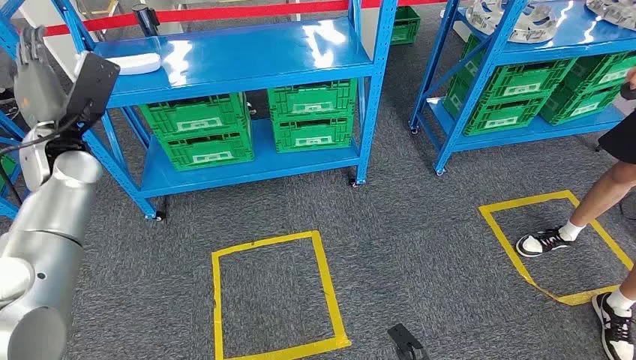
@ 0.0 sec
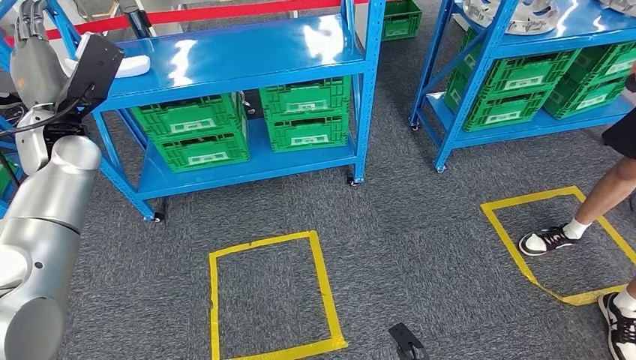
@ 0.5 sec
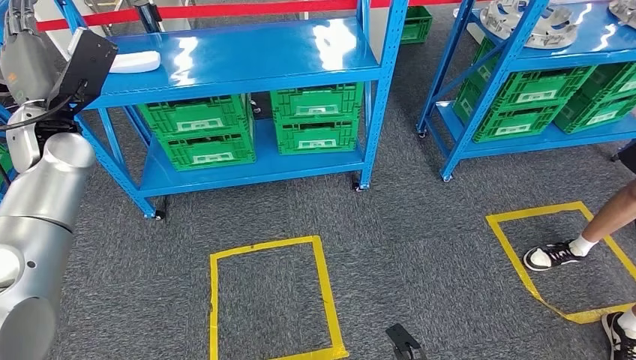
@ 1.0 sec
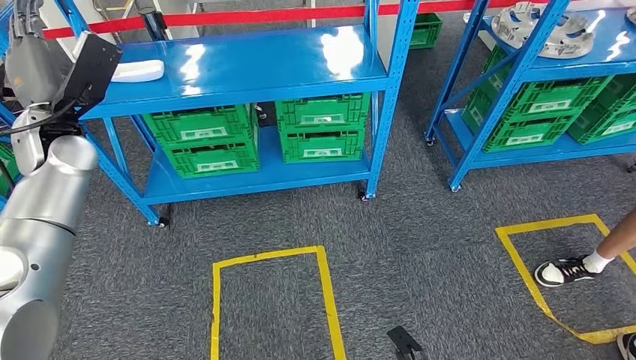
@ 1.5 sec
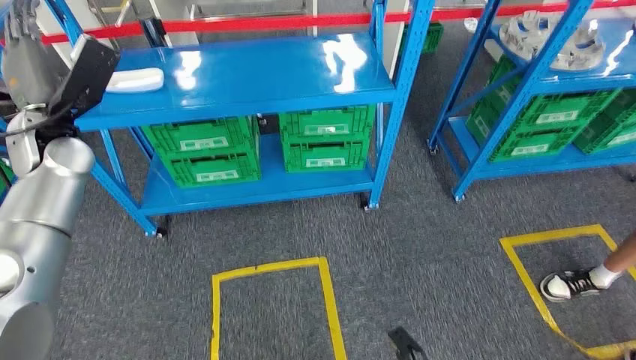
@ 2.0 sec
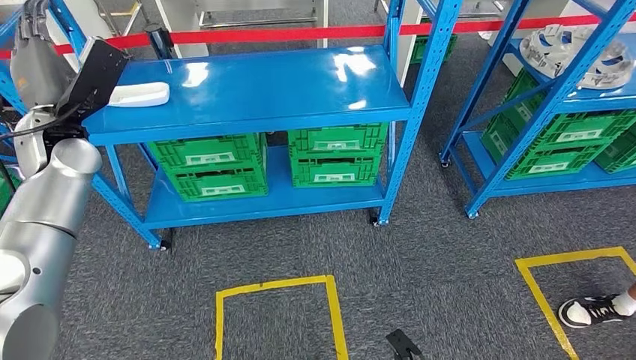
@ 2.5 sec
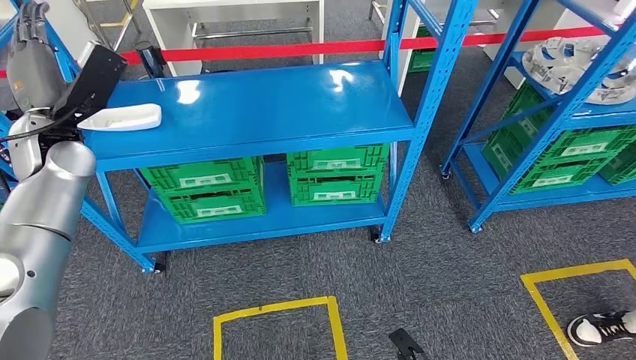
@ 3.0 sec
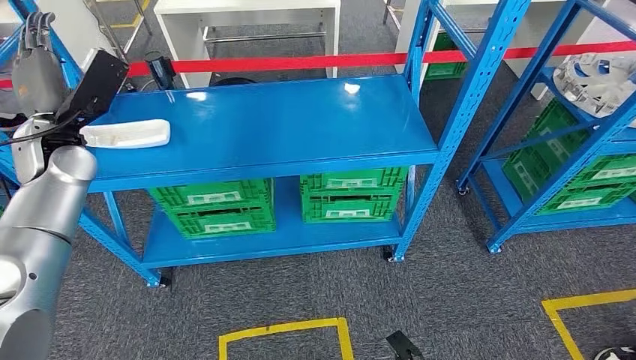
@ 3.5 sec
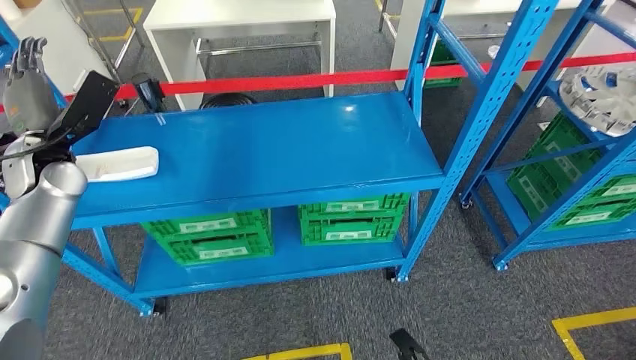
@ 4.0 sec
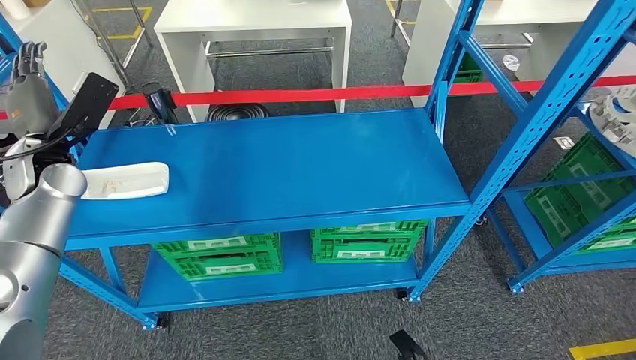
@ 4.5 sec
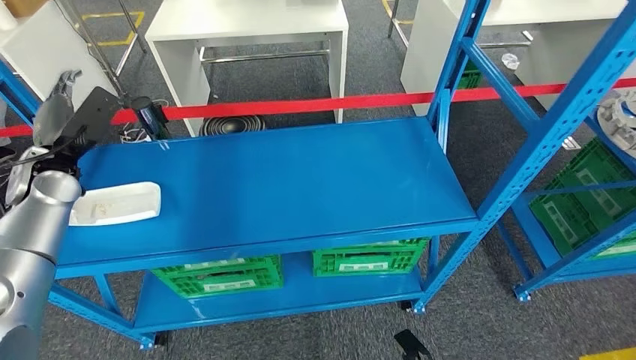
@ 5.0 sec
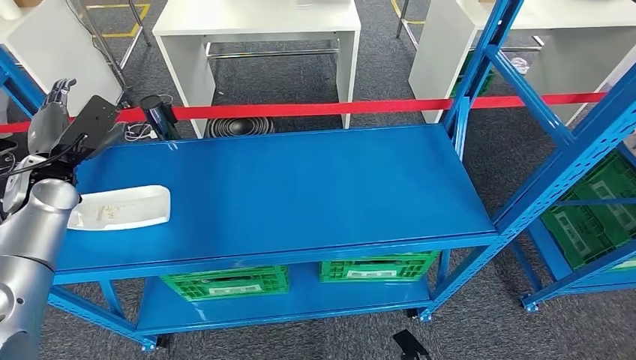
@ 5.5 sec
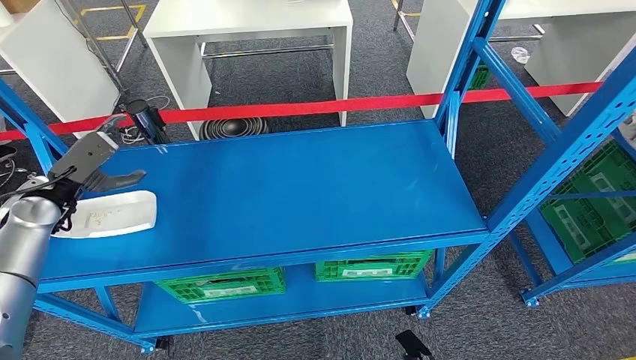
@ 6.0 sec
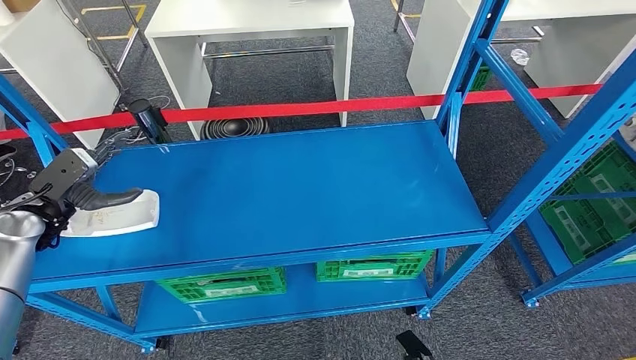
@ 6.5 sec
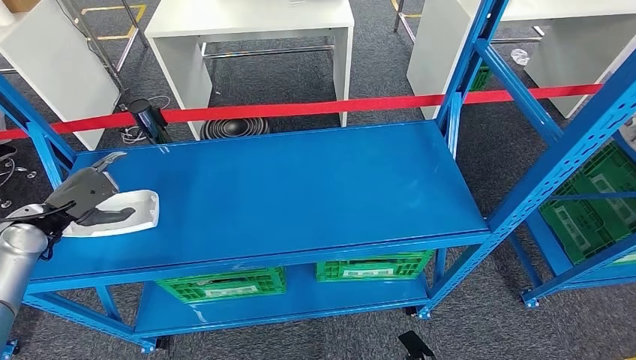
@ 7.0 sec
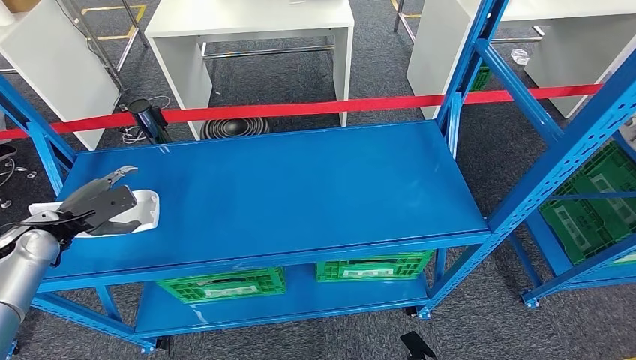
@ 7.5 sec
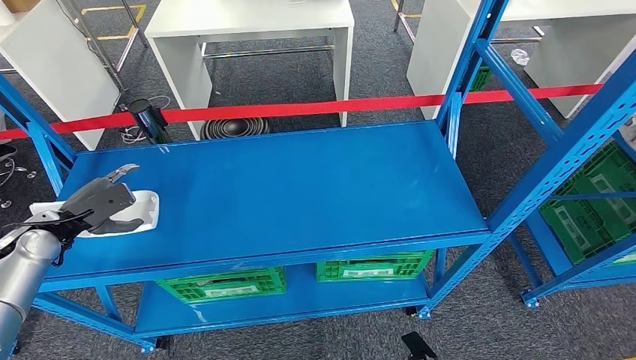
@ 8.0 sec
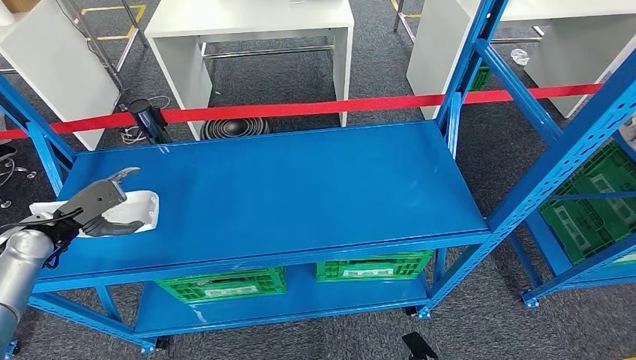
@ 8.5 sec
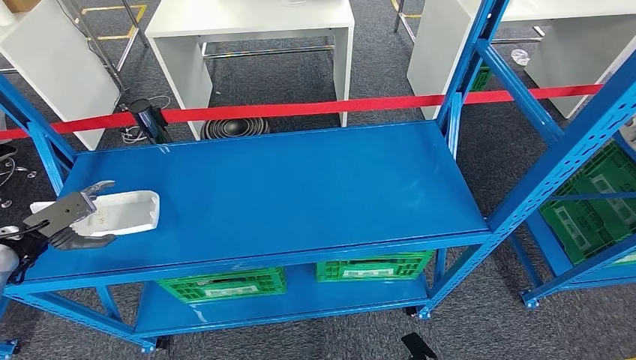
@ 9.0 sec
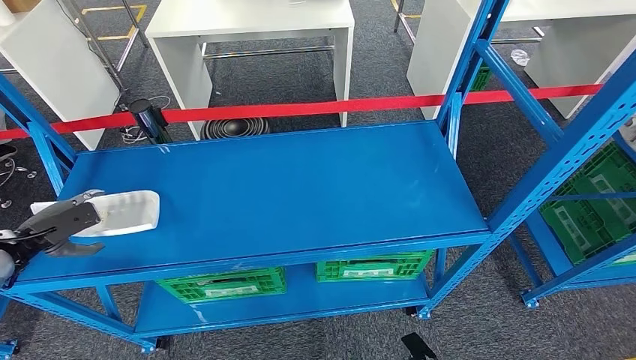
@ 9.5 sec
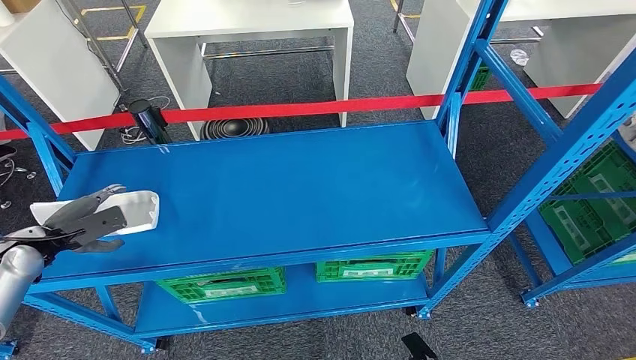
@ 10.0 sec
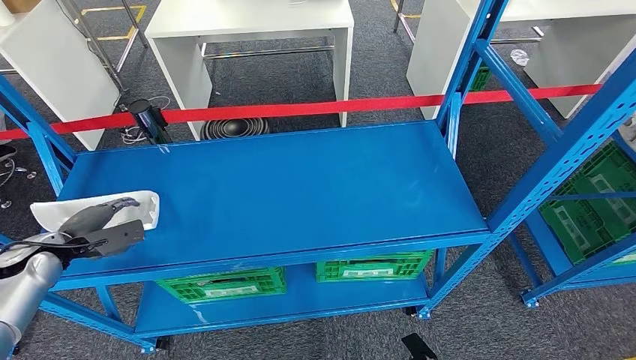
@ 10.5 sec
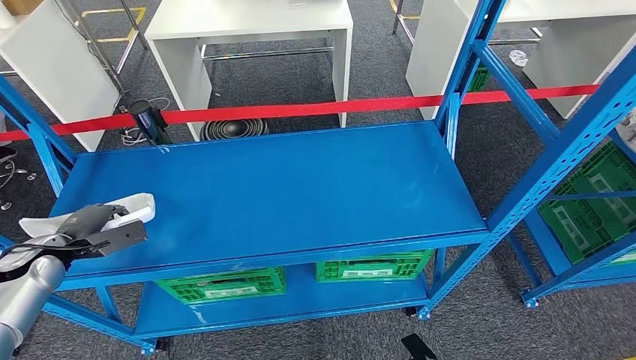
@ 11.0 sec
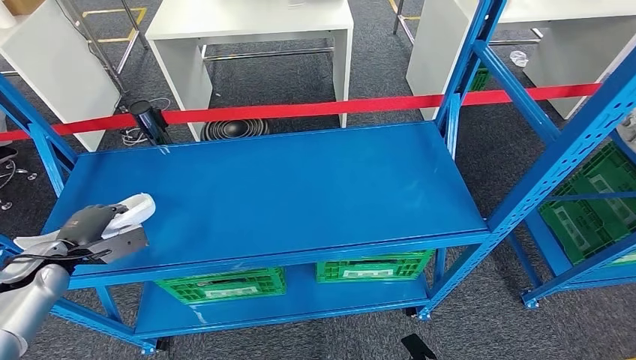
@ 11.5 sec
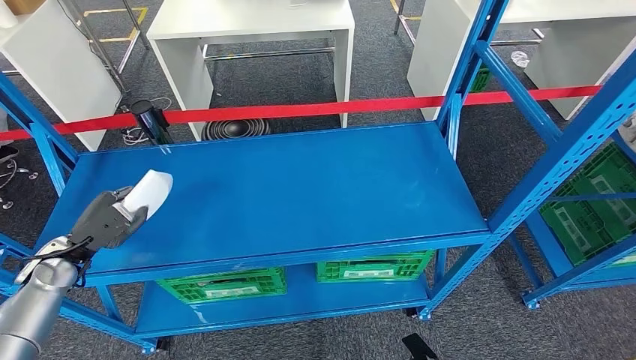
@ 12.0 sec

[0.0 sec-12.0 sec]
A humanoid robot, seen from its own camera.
6.0 sec to 8.0 sec: The left hand changes place by about 5 cm.
10.0 sec to 12.0 sec: The left hand travels to the right by about 5 cm.

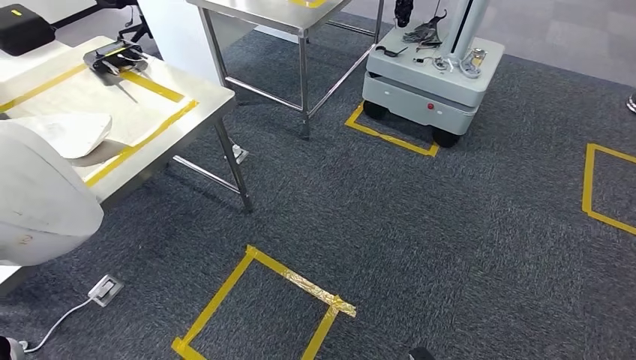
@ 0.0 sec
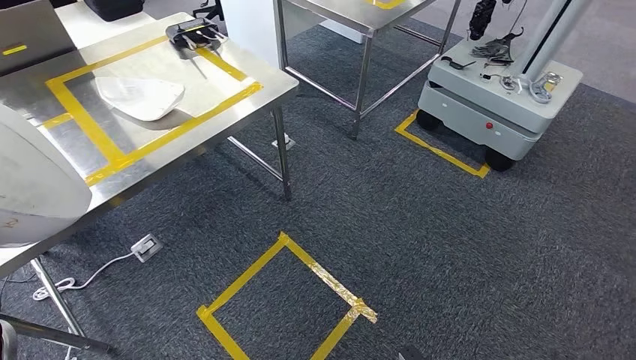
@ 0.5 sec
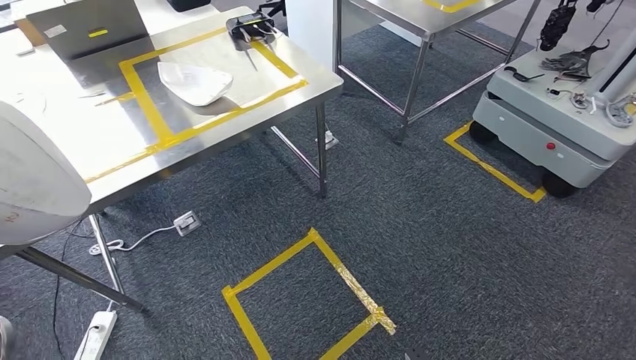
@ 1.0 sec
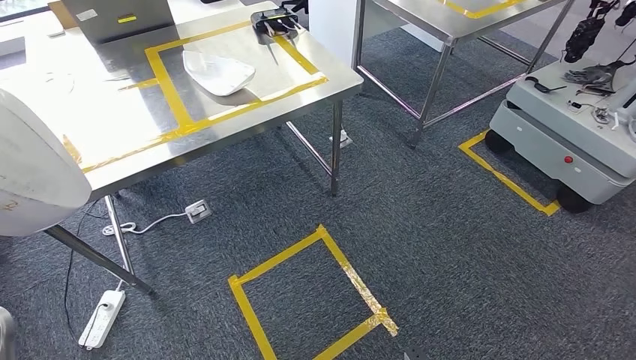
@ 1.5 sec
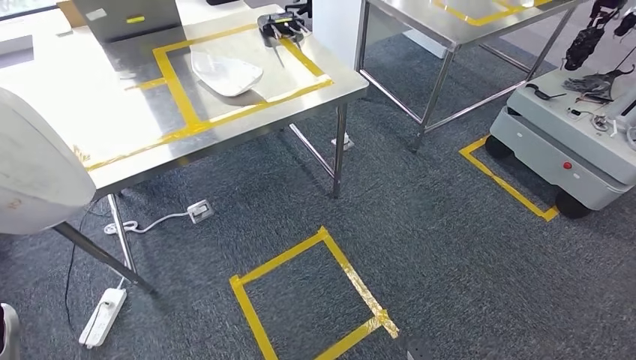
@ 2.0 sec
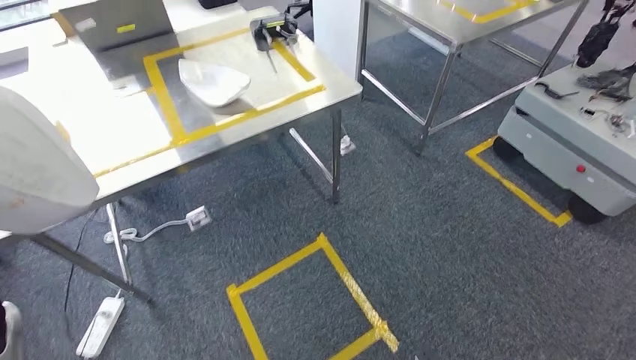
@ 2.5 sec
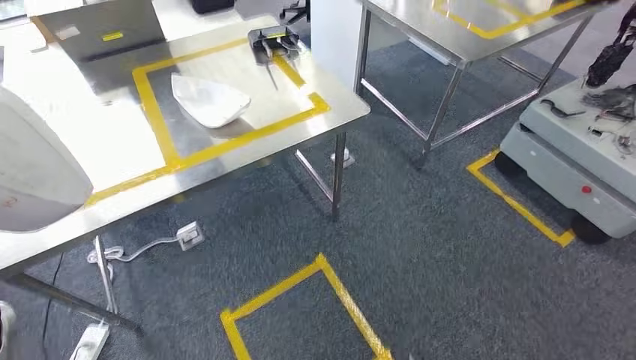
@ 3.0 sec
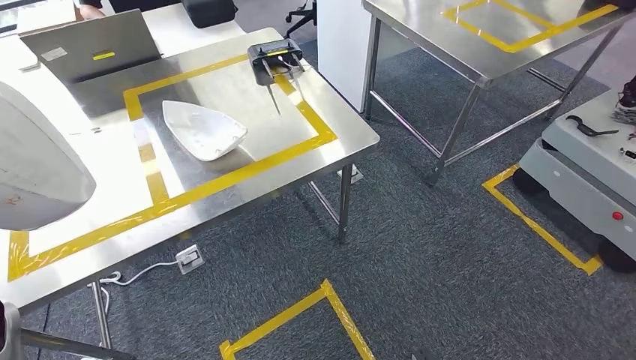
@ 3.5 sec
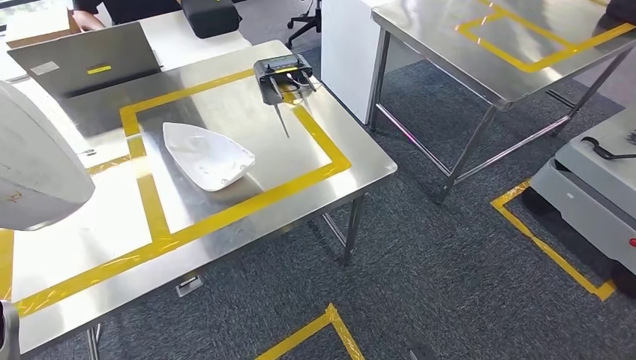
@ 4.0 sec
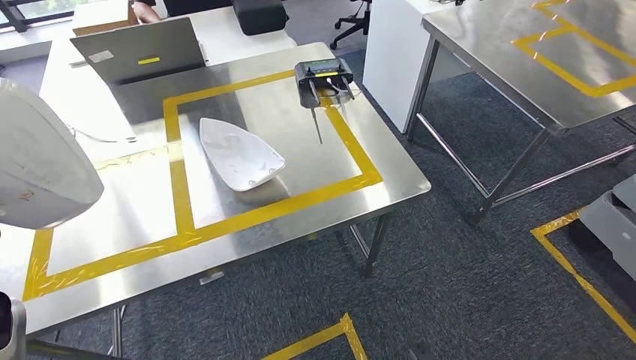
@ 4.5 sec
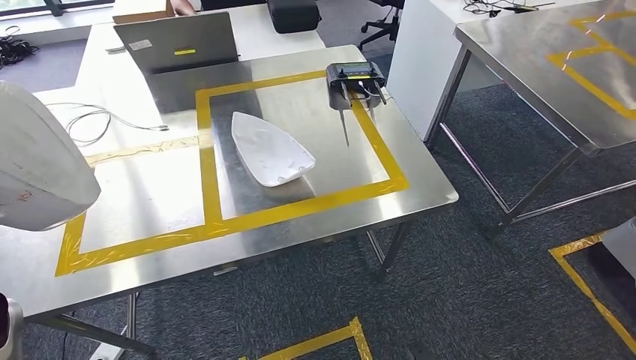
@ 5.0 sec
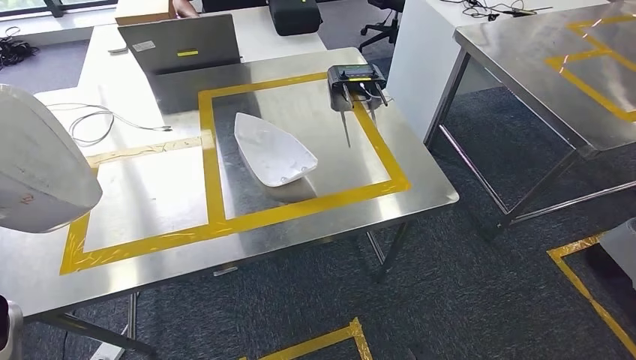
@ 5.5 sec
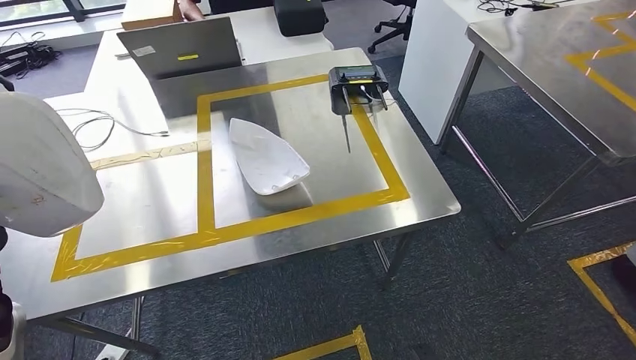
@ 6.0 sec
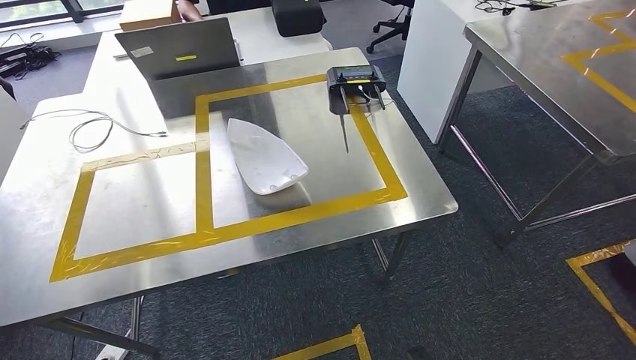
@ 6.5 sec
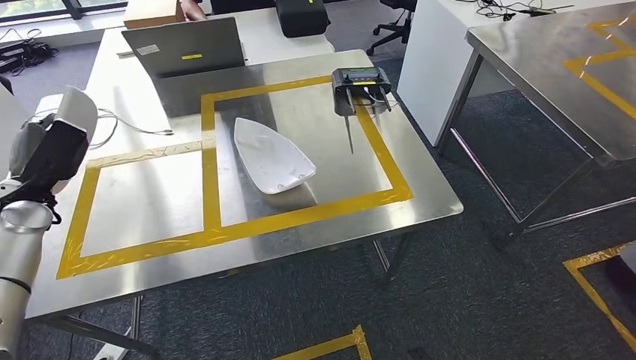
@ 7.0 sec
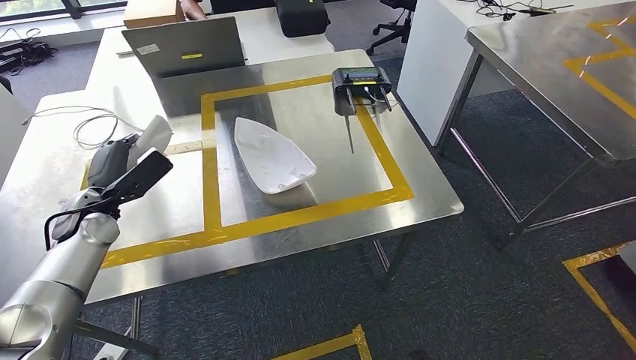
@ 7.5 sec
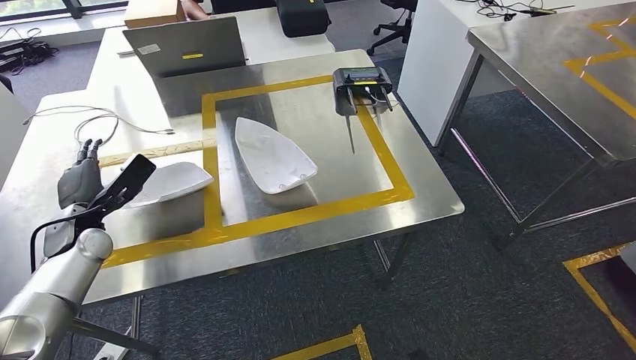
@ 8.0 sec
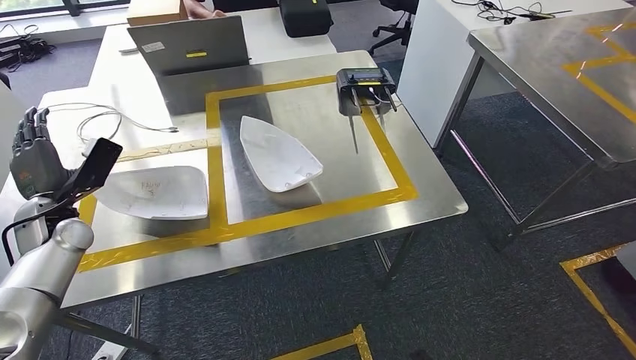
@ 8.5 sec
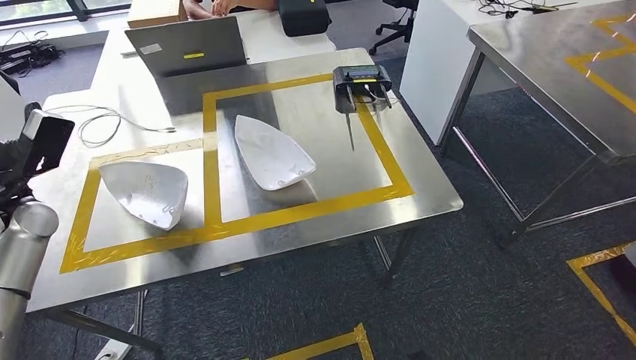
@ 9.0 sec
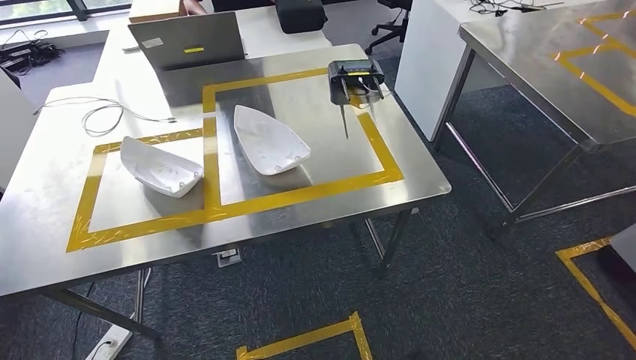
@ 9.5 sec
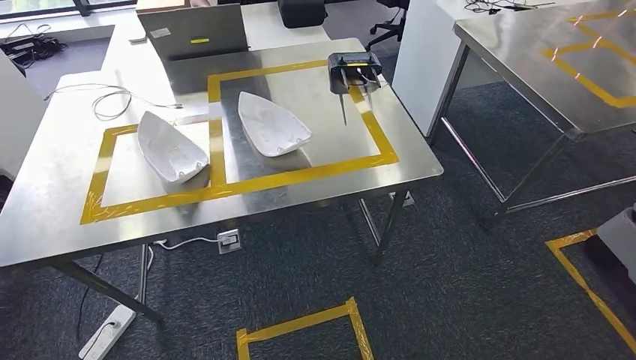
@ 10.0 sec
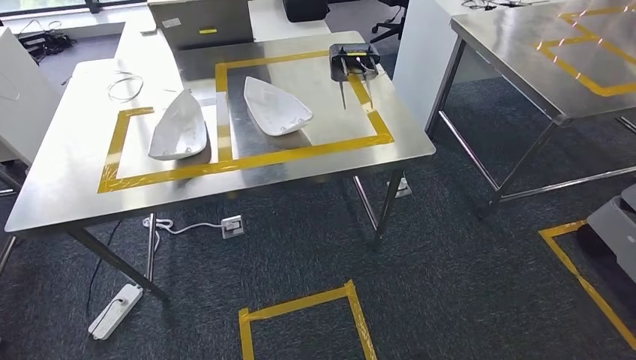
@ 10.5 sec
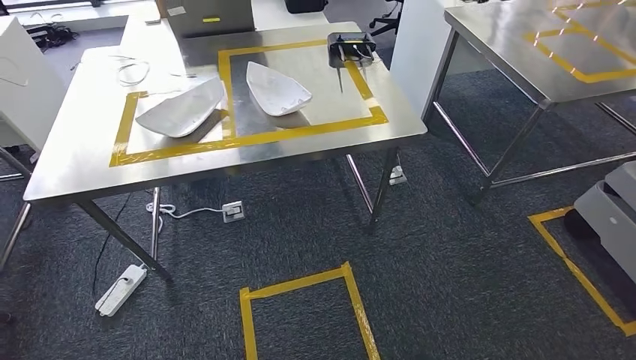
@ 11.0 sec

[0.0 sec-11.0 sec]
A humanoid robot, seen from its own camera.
Step, 0.0 sec to 4.0 sec: Move the small parts to the workbench.
Step, 4.5 sec to 9.5 sec: Insert the small parts into the corresponding holes on the workbench.
